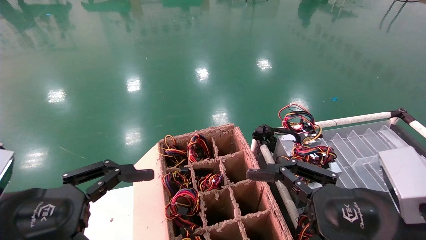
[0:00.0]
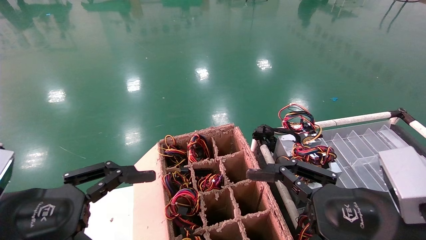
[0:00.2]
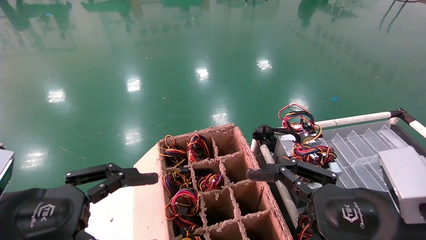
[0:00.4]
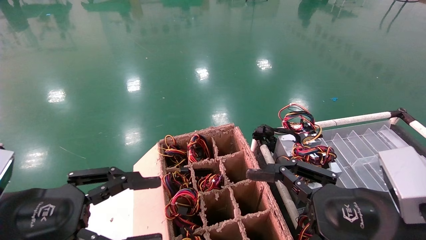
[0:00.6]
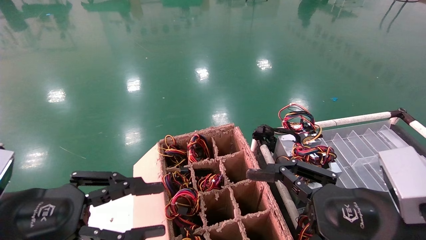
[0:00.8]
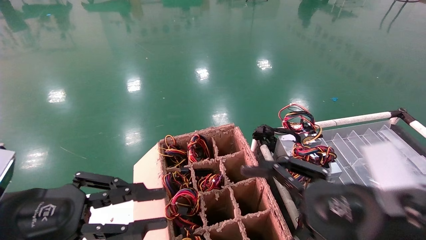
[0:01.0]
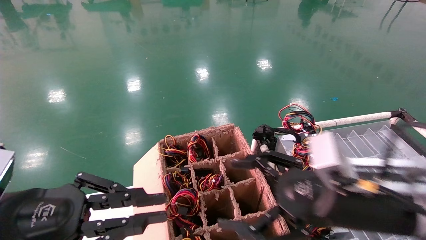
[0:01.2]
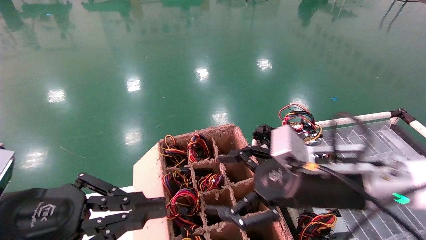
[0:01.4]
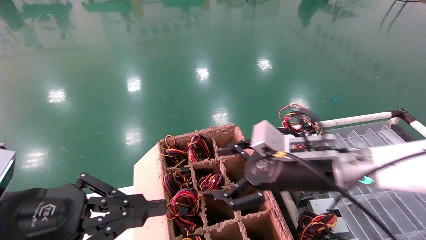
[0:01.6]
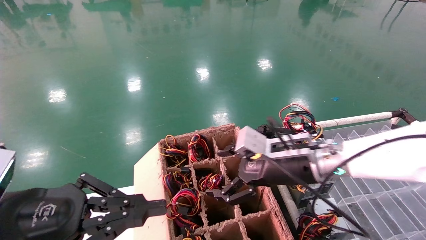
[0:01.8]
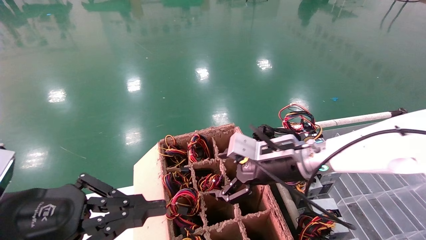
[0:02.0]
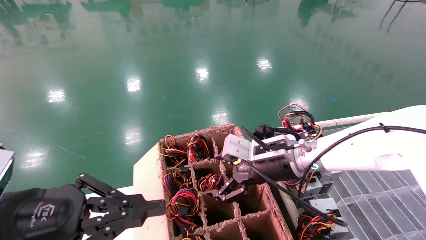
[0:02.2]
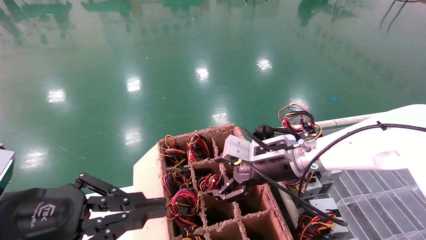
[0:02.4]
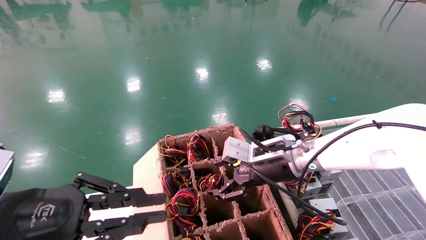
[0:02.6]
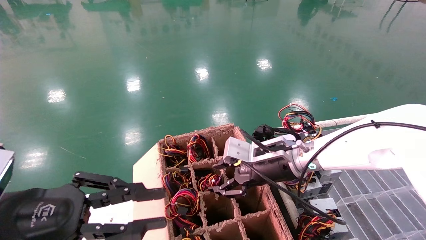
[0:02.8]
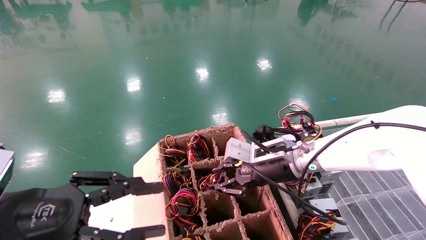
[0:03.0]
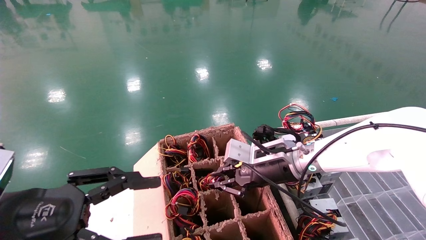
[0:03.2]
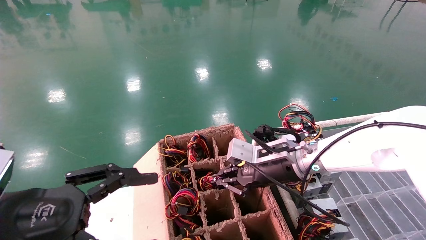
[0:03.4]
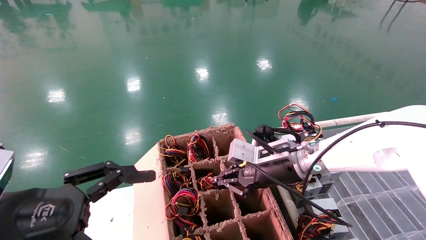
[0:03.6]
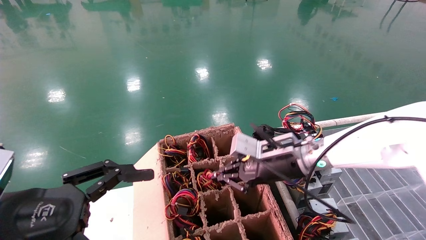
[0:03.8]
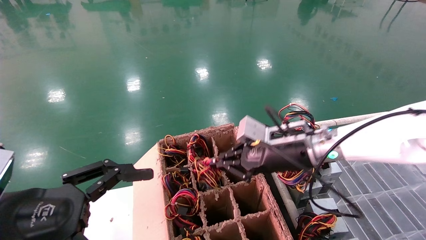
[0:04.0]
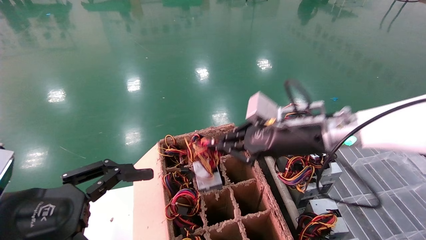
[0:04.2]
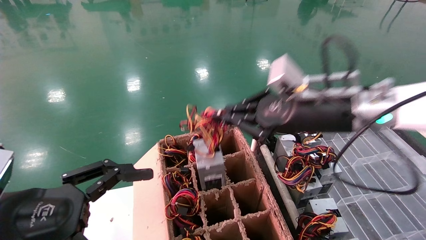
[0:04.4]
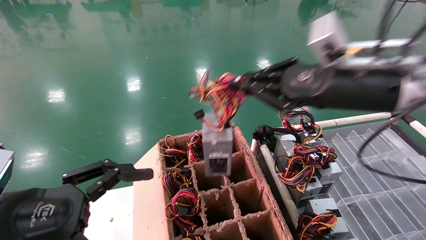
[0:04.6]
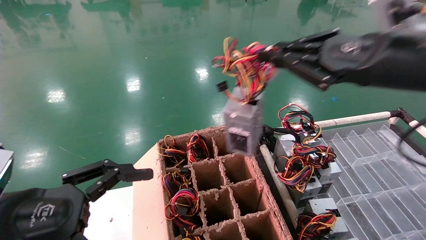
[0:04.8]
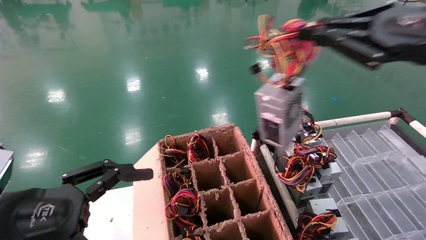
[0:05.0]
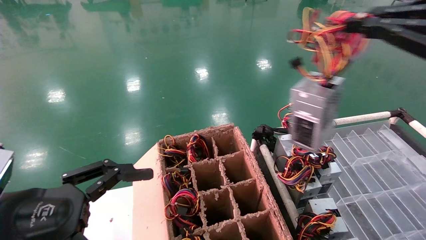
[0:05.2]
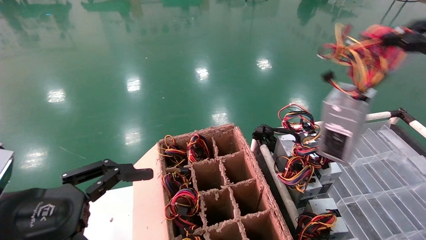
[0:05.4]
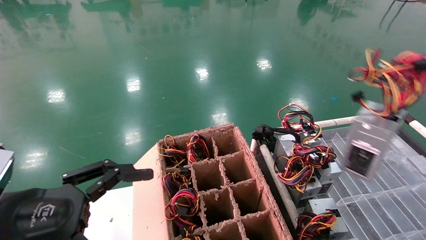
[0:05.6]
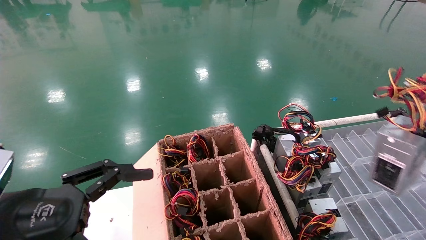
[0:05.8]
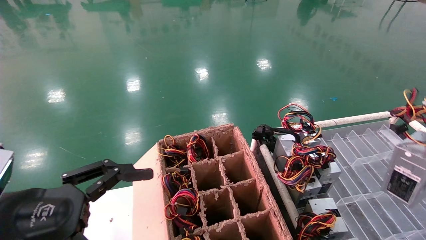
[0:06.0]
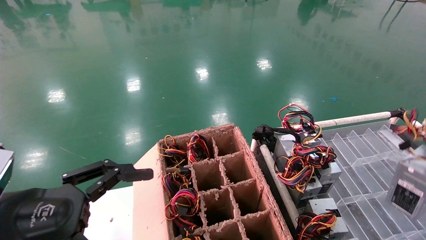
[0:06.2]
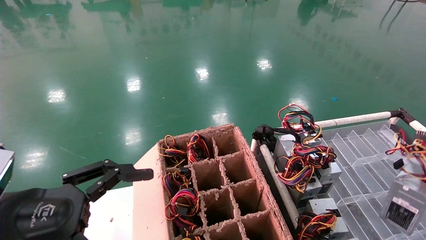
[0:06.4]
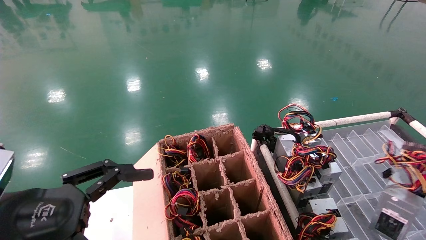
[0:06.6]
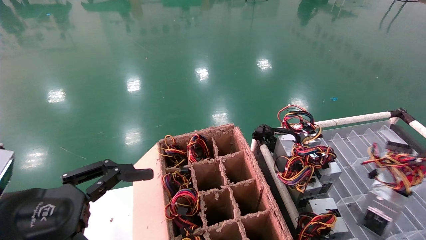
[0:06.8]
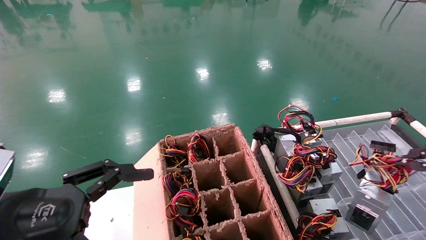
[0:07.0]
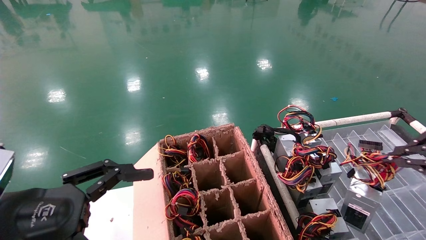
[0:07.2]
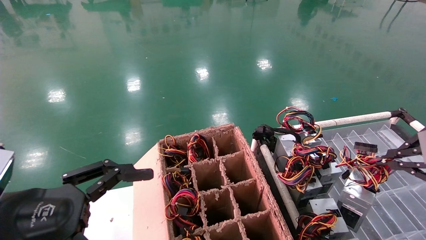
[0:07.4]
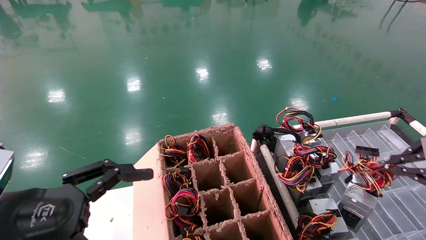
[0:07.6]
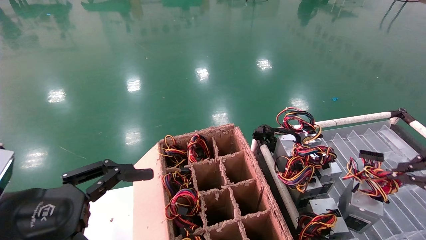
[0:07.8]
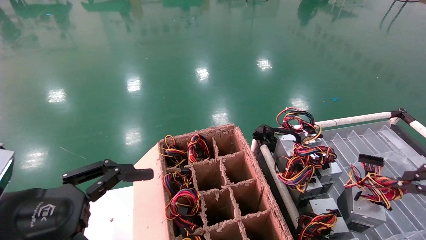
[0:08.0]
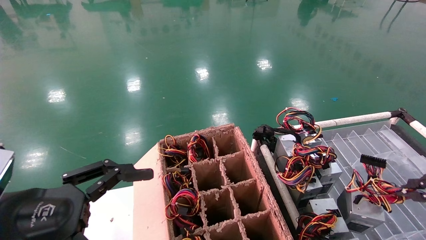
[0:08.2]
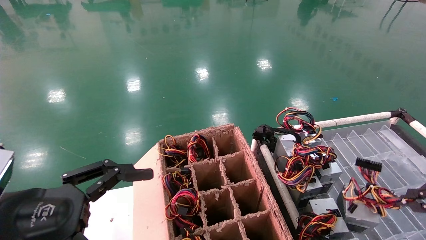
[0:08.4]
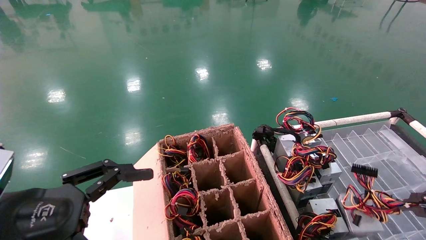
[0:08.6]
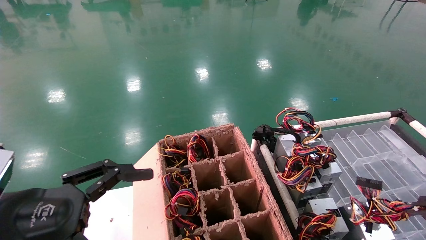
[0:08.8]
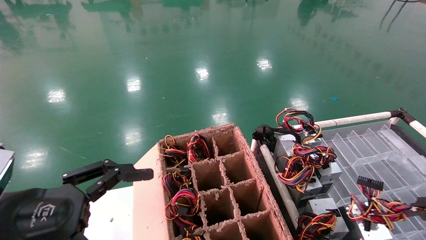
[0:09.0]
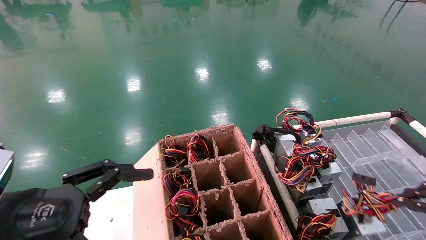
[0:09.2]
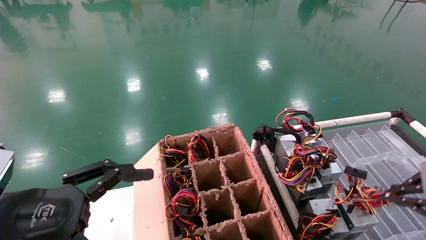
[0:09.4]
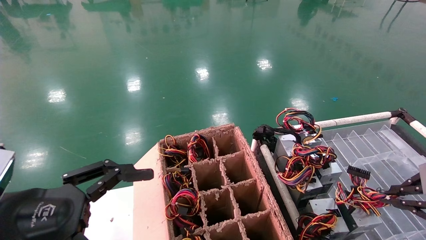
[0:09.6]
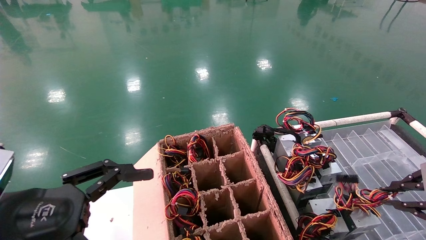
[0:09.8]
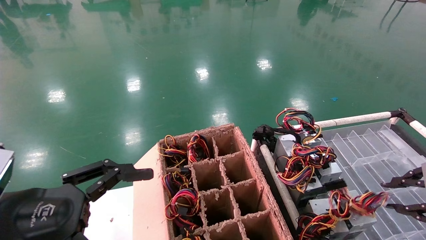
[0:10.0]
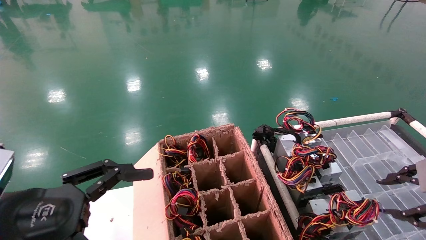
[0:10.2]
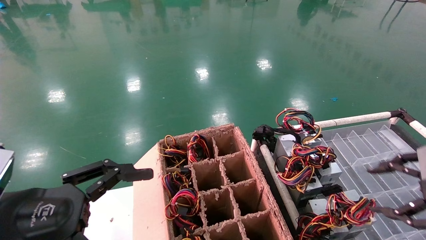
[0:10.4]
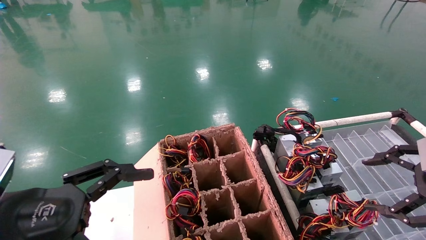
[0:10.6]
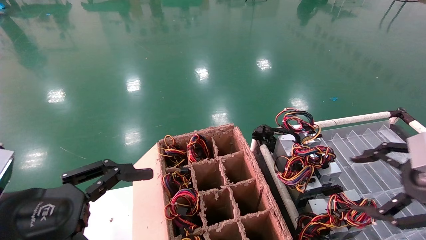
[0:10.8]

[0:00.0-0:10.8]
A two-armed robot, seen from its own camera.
Step, 0:00.8 to 0:03.6: Grab and lift the power supply from the large box.
Step, 0:03.8 to 0:09.8: Place the power supply on the operating table.
0:00.0 to 0:01.6: The left gripper closes up. Meanwhile the right gripper heads forward and to the left, covering roughly 15 cm.
0:01.6 to 0:03.0: The right gripper heads forward, covering about 10 cm, and closes.
0:03.0 to 0:04.6: The left gripper opens up. Meanwhile the right gripper shifts approximately 20 cm upward, backward and to the right, and closes its fingers.
0:04.6 to 0:06.2: The right gripper travels to the right and backward by approximately 25 cm.
0:06.2 to 0:07.8: The right gripper travels forward, downward and to the left by some 10 cm.
0:07.8 to 0:09.2: The grippers move only a little.
0:09.2 to 0:10.8: The right gripper moves to the left, roughly 5 cm, and opens up.

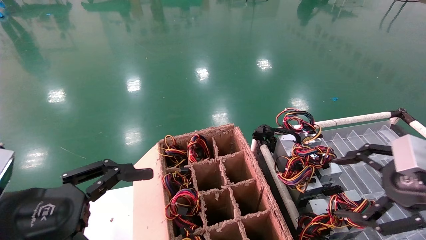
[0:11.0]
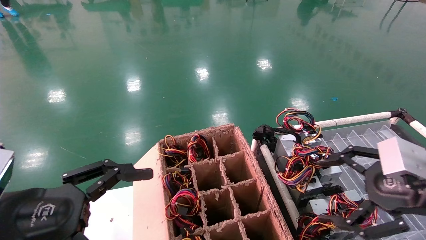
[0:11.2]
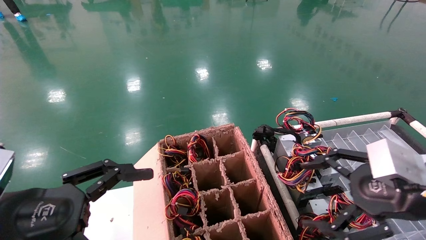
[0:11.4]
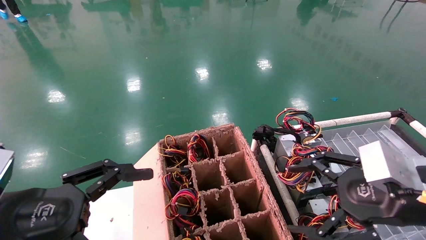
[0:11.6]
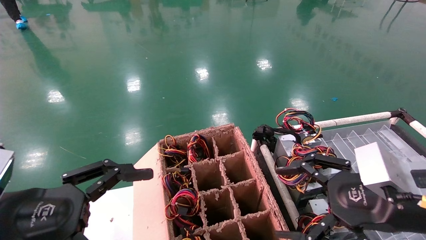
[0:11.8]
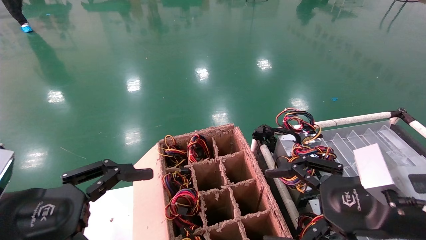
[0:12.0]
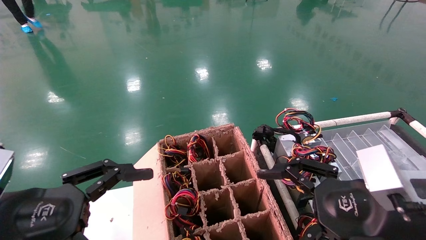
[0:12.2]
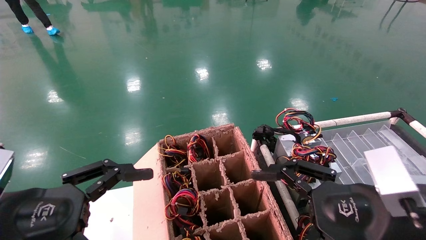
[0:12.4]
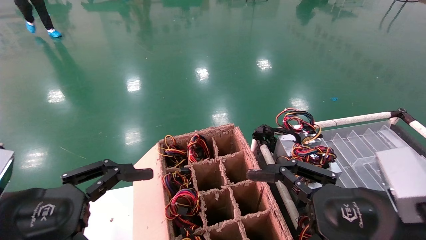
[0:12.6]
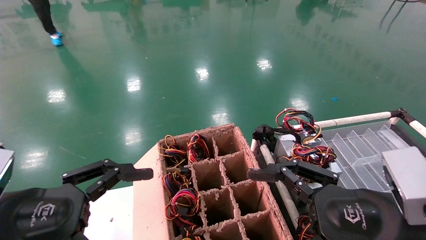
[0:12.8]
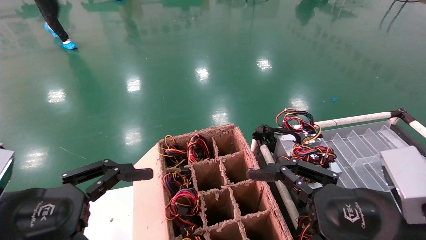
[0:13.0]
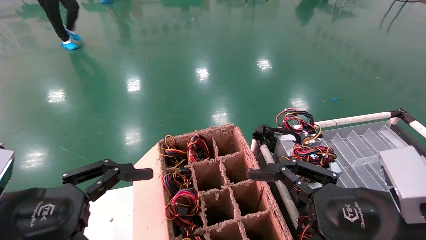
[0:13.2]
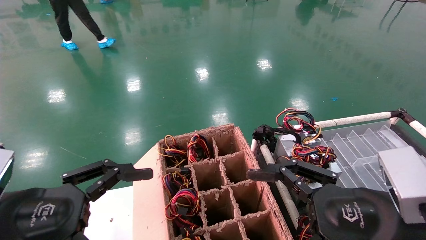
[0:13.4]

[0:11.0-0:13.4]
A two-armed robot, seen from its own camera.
0:11.0 to 0:12.2: The right gripper shifts some 10 cm to the left.
0:12.2 to 0:13.4: The grippers stay close to where they were, moving slightly.

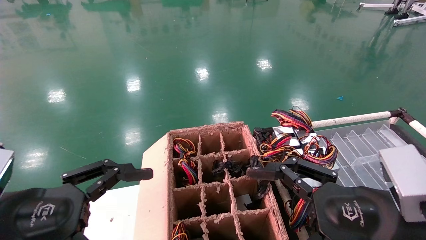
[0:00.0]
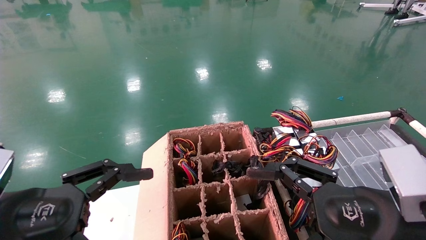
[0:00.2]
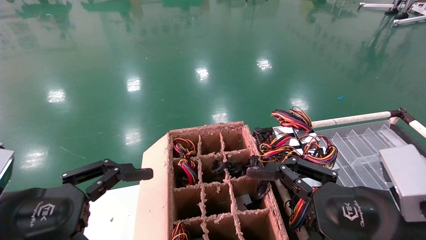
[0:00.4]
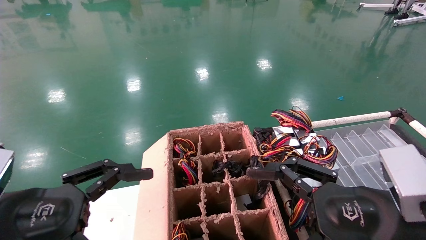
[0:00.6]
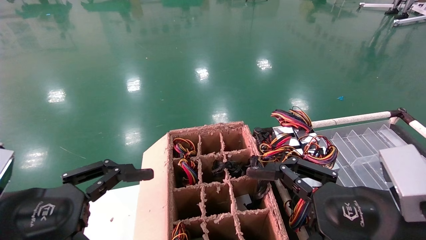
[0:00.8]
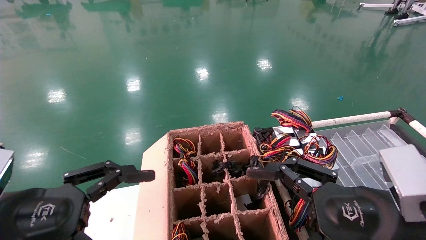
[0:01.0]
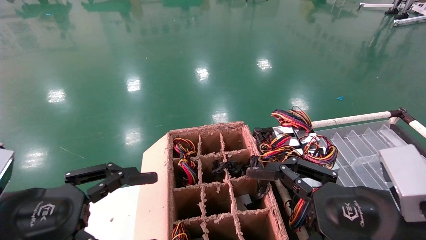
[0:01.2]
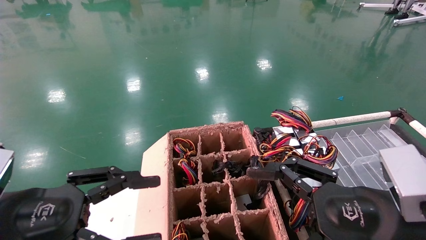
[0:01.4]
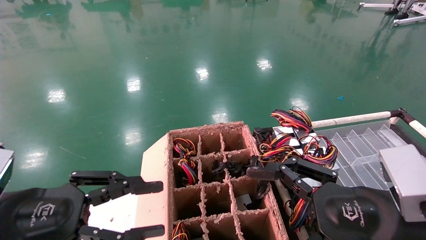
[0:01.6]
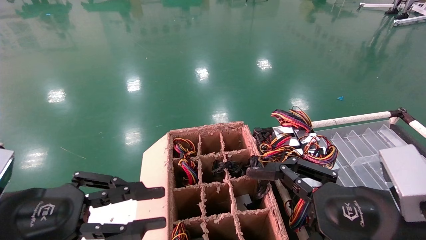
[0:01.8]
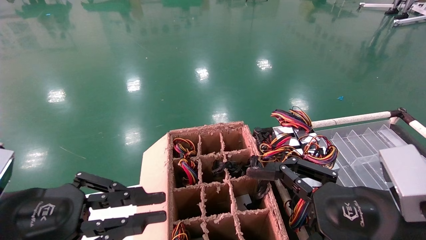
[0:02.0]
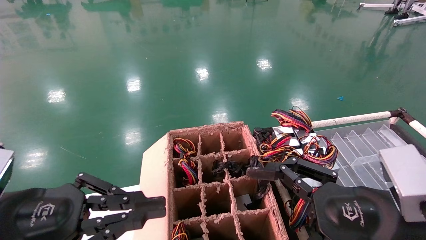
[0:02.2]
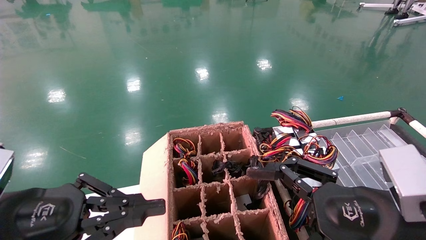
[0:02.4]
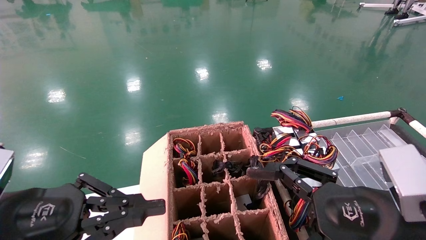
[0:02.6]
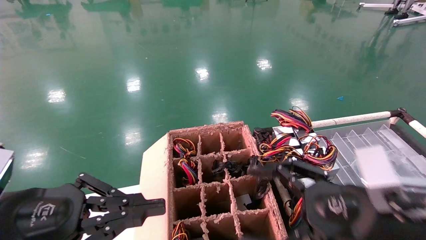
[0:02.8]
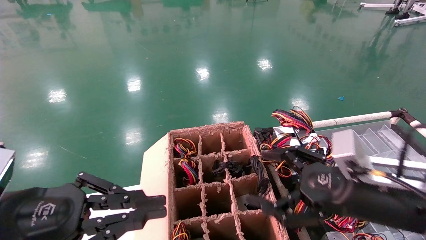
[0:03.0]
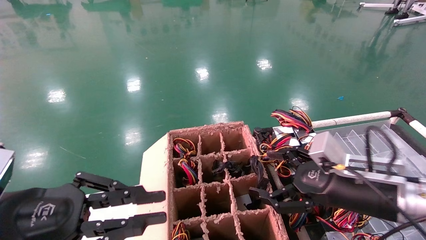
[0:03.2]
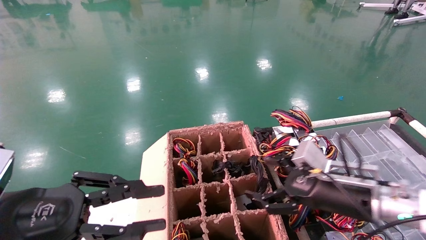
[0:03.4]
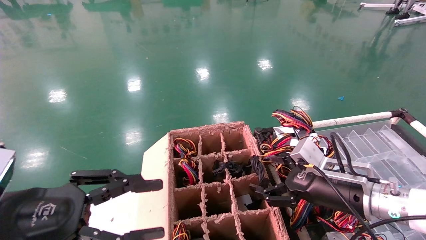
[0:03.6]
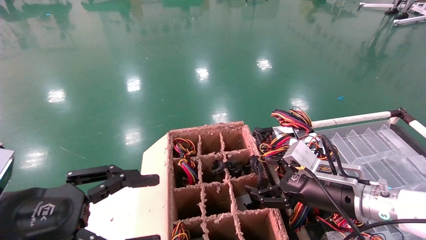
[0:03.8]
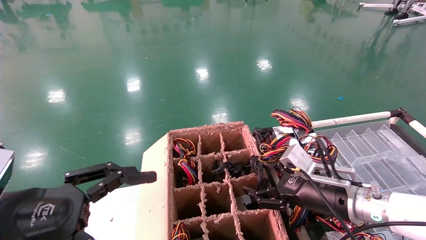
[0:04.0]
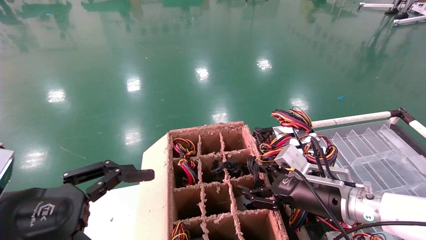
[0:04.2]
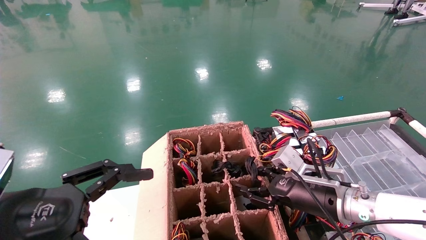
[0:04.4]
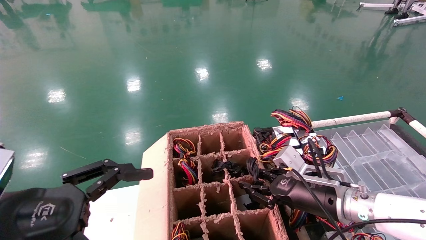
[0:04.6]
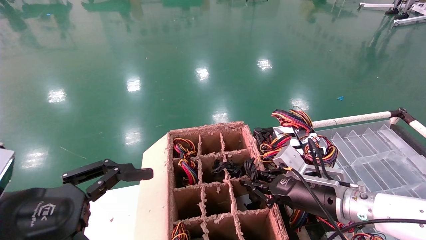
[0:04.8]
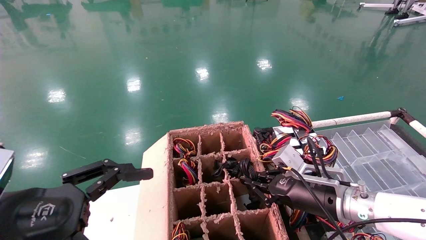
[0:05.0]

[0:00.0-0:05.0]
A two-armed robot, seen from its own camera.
0:00.0 to 0:01.6: The left gripper closes.
0:01.6 to 0:03.4: The left gripper closes its fingers, while the right gripper shifts roughly 10 cm forward.
0:03.4 to 0:05.0: The left gripper opens its fingers, while the right gripper moves some 5 cm, and closes up.
